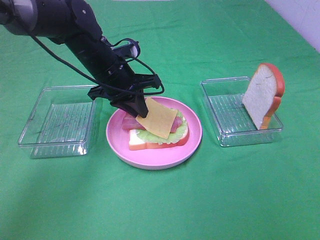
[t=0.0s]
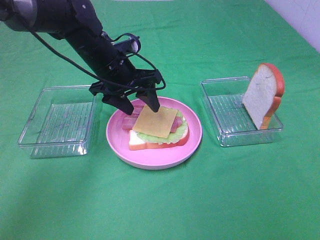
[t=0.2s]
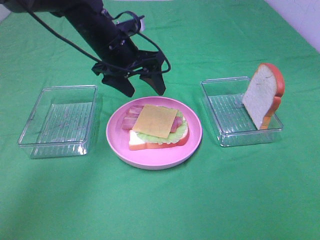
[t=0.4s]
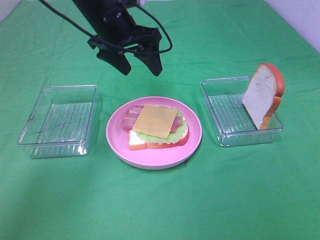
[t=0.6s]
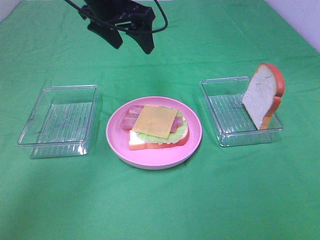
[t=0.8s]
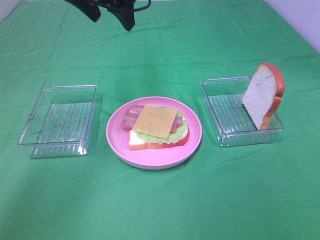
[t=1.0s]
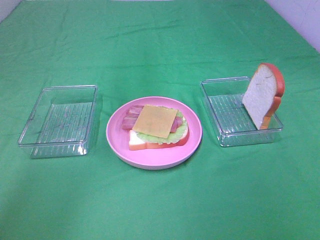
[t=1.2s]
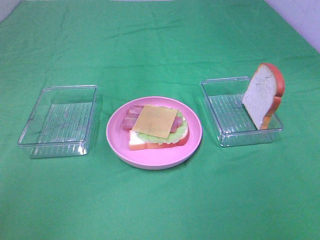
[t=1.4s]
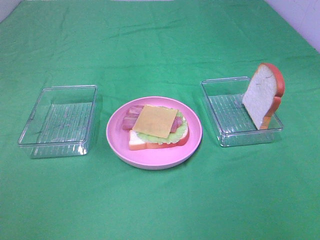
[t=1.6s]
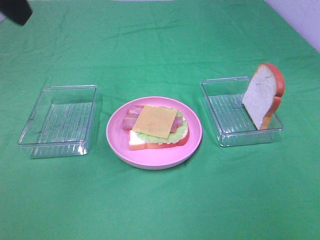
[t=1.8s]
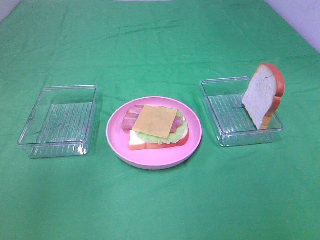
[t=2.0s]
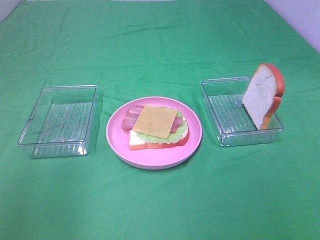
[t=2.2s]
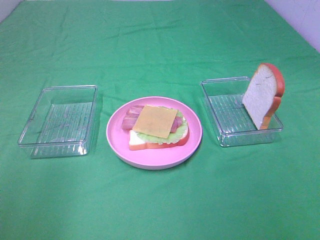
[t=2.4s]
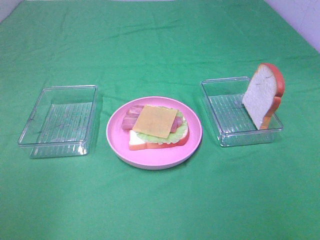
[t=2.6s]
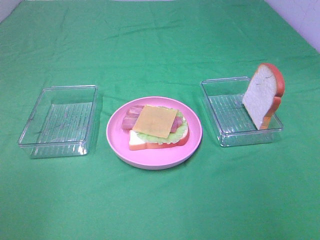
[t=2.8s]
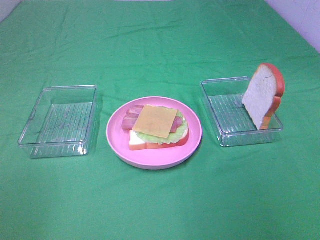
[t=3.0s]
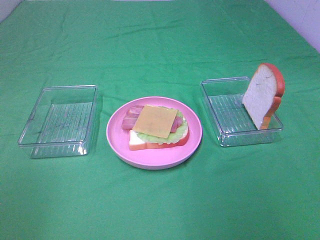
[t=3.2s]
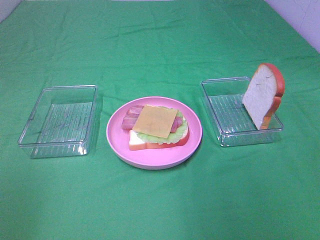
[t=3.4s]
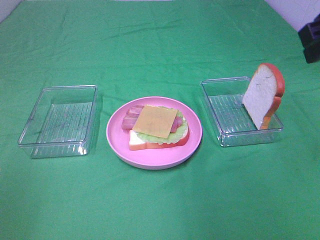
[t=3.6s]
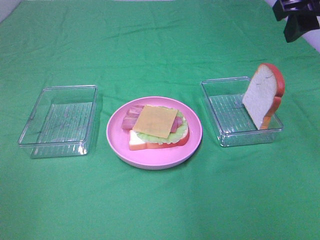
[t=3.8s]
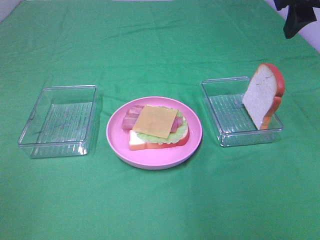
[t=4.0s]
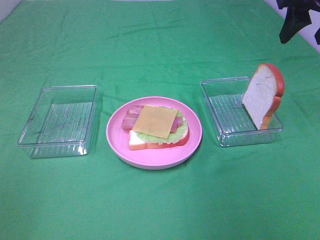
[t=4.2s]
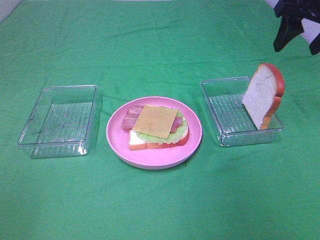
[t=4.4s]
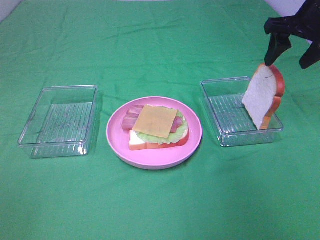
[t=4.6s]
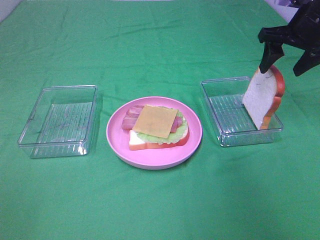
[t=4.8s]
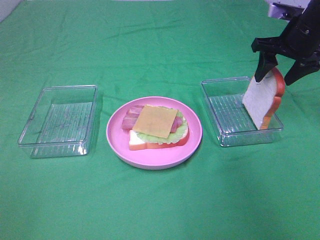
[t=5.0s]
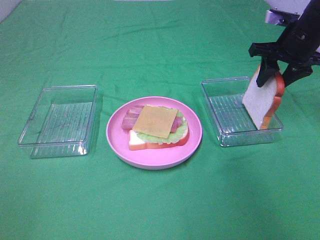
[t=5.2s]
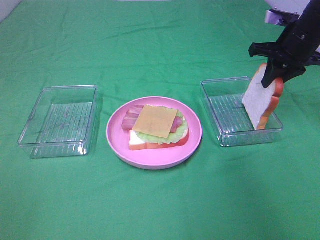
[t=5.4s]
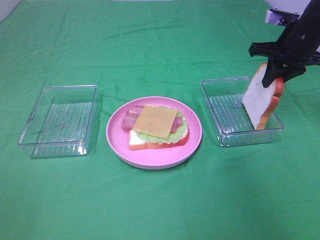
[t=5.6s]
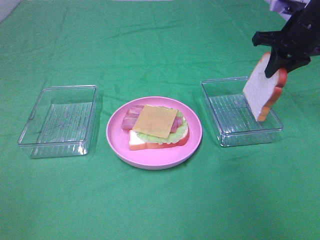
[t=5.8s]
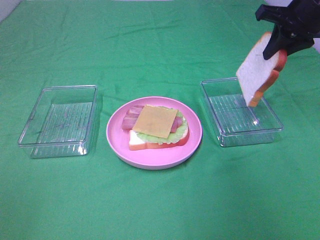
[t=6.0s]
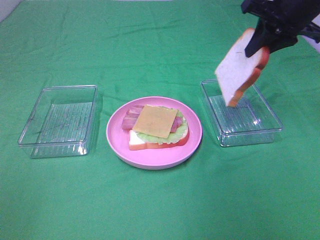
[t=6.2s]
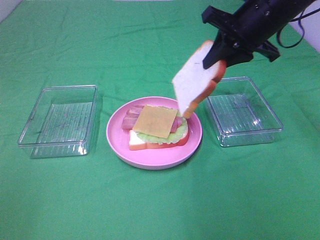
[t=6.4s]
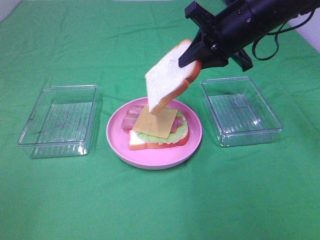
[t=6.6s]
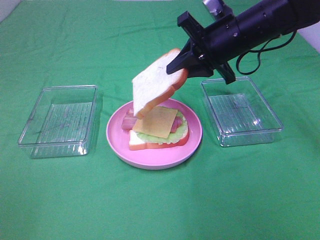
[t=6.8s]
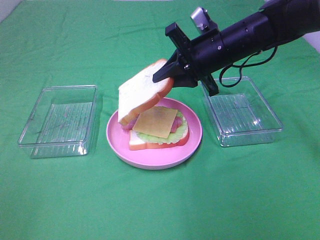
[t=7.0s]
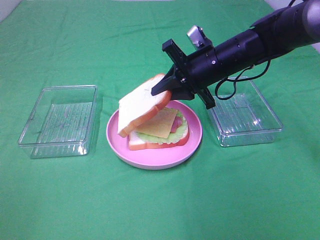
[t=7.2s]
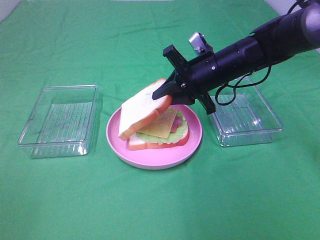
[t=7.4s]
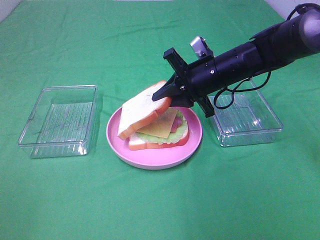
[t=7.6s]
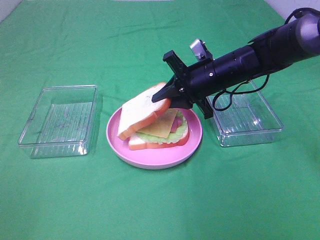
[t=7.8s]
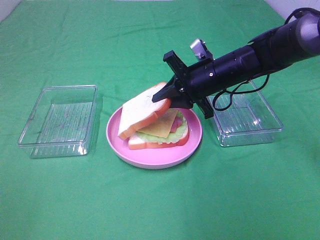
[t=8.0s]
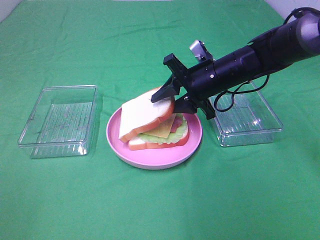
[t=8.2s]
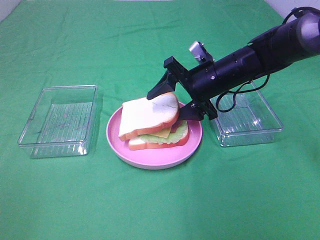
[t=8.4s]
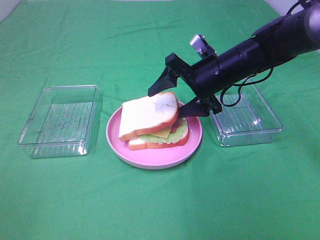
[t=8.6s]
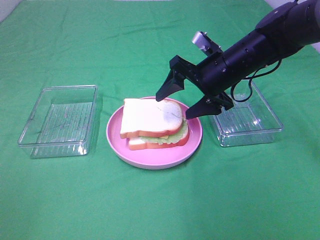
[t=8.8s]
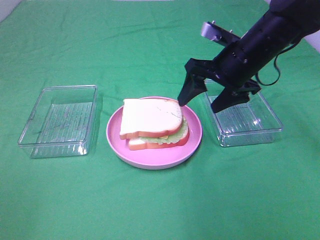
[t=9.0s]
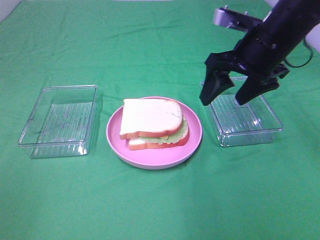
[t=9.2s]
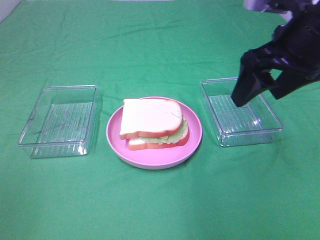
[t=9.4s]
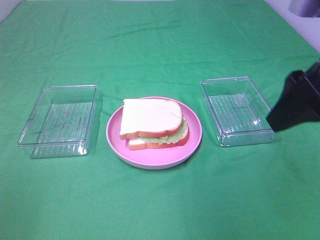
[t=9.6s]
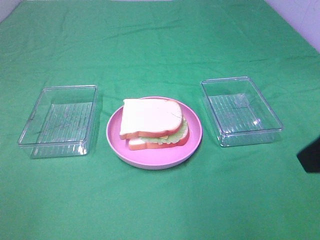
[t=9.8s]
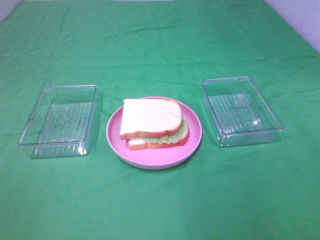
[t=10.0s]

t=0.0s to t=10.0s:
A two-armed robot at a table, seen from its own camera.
Task of the whole recording: Make sandwiches.
Step, t=0.4s to t=5.6s: Right hand:grab the bread slice.
Step, t=5.8s to t=8.8s: Right hand:place the bread slice on the cheese slice.
t=0.0s to t=1.4s: The left gripper moves upward, about 25 cm, and opens.
t=1.4s to t=2.8s: The left gripper moves backward, to the left and downward, about 35 cm.
t=2.8s to t=4.2s: The right gripper goes roughly 35 cm forward.
t=4.2s to t=5.8s: The right gripper heads downward and forward, covering about 10 cm, and closes up.
t=5.8s to t=7.2s: The right gripper goes some 15 cm to the left and downward.
t=7.2s to t=8.6s: The right gripper opens its fingers.
t=8.6s to t=10.0s: The right gripper heads backward, upward and to the right, covering approximately 35 cm.

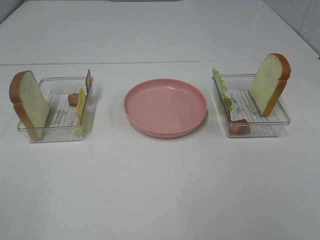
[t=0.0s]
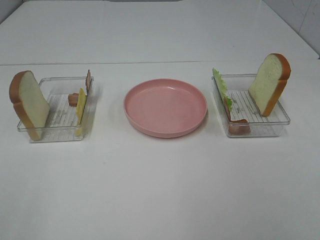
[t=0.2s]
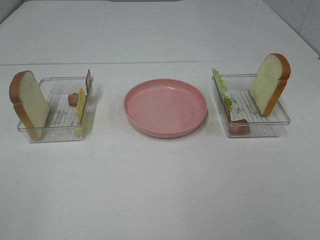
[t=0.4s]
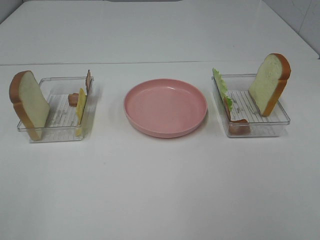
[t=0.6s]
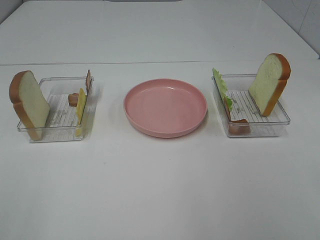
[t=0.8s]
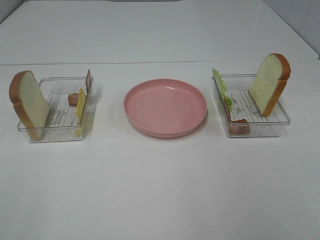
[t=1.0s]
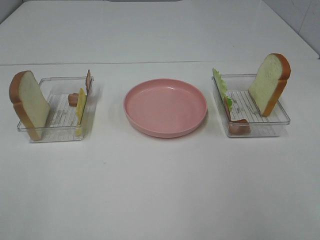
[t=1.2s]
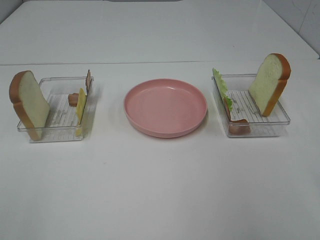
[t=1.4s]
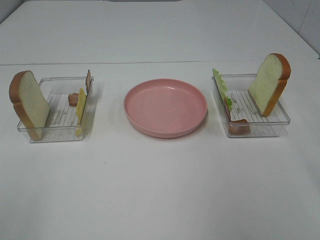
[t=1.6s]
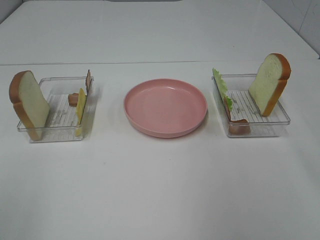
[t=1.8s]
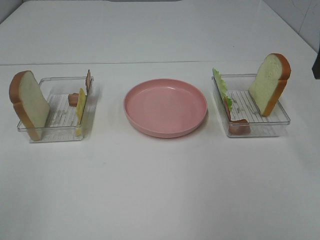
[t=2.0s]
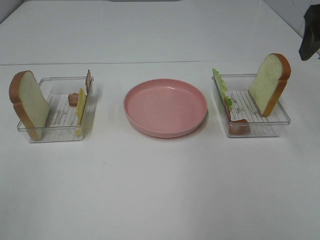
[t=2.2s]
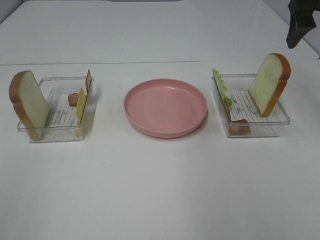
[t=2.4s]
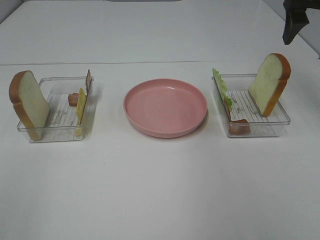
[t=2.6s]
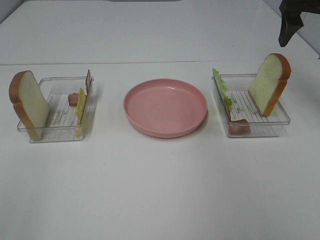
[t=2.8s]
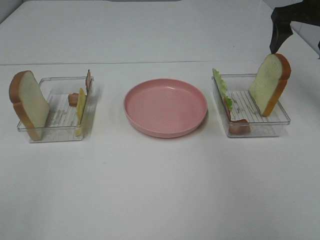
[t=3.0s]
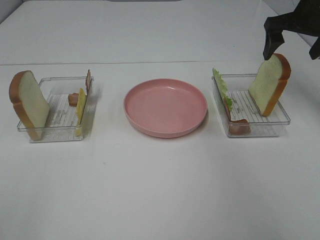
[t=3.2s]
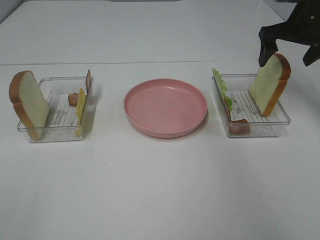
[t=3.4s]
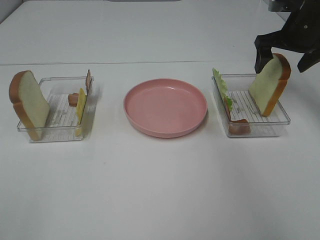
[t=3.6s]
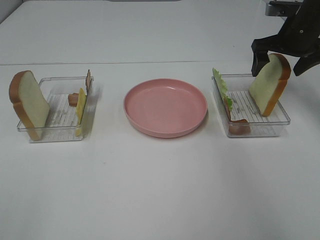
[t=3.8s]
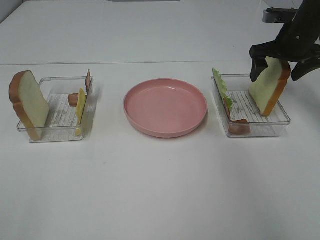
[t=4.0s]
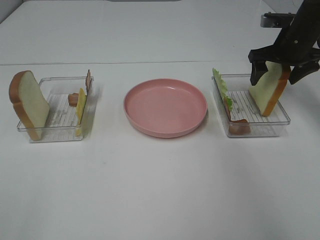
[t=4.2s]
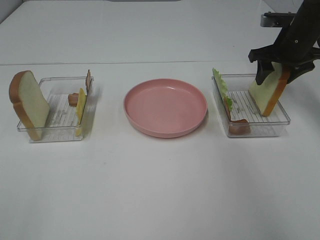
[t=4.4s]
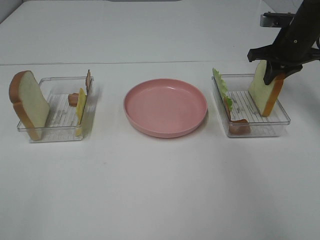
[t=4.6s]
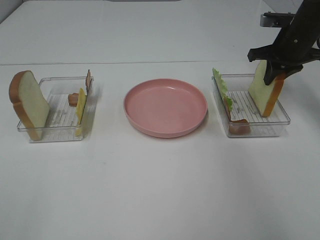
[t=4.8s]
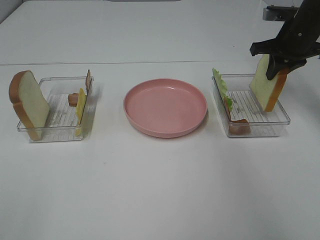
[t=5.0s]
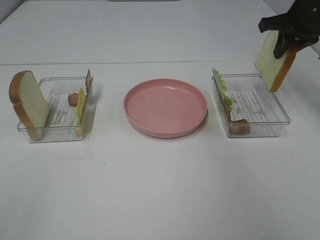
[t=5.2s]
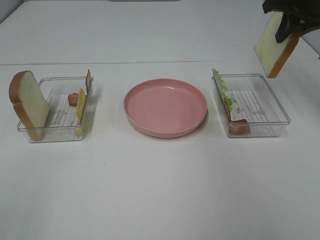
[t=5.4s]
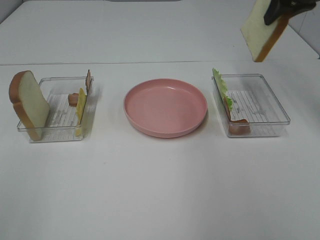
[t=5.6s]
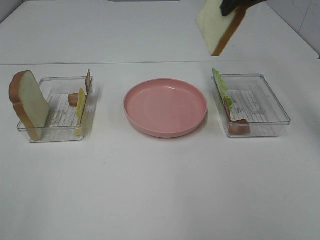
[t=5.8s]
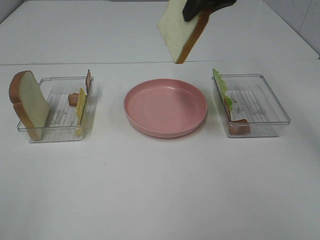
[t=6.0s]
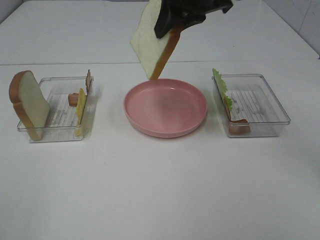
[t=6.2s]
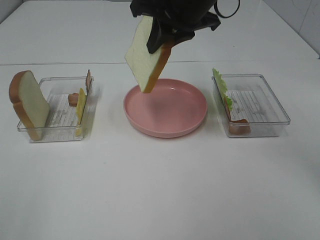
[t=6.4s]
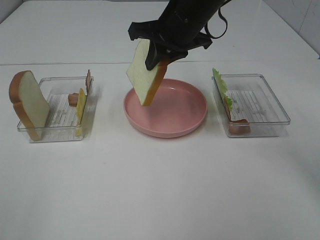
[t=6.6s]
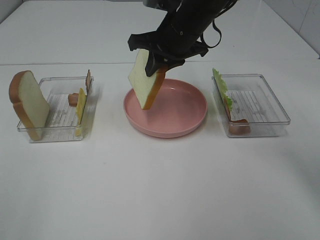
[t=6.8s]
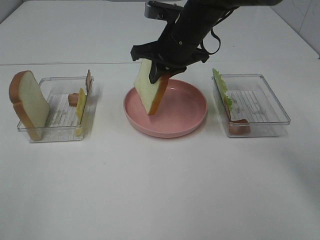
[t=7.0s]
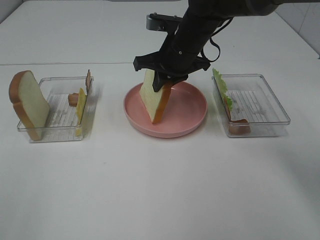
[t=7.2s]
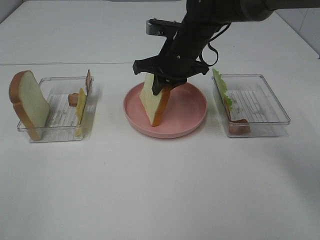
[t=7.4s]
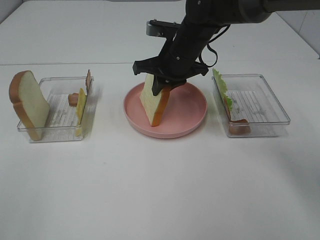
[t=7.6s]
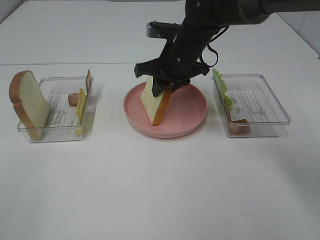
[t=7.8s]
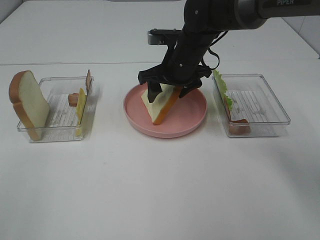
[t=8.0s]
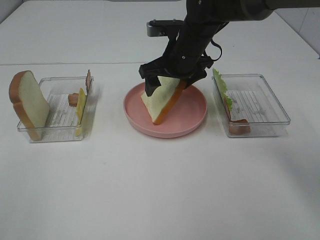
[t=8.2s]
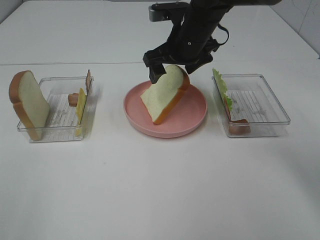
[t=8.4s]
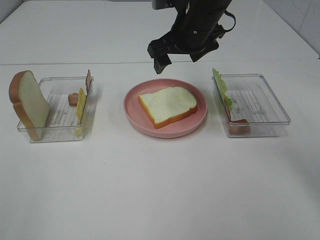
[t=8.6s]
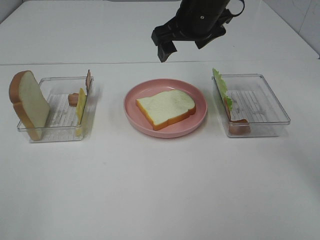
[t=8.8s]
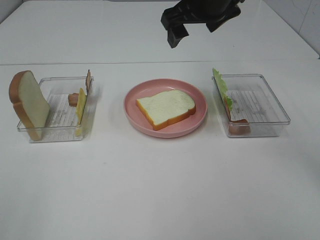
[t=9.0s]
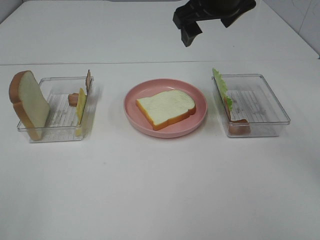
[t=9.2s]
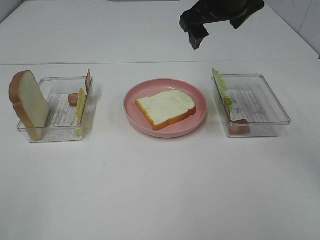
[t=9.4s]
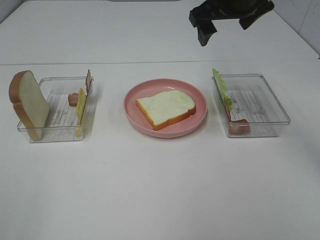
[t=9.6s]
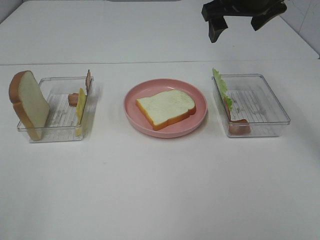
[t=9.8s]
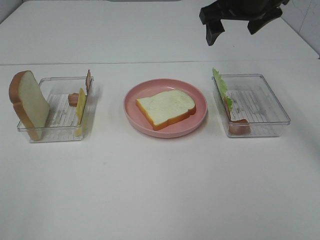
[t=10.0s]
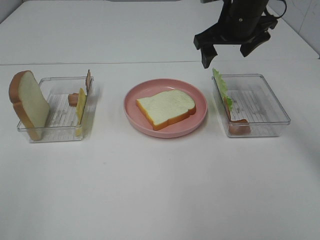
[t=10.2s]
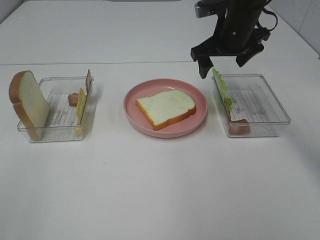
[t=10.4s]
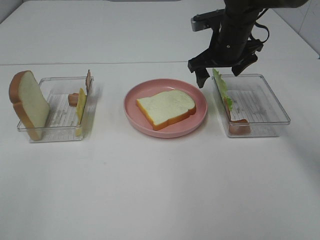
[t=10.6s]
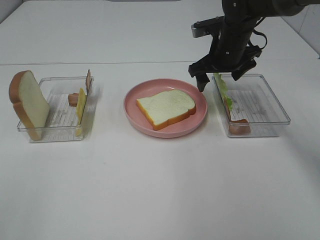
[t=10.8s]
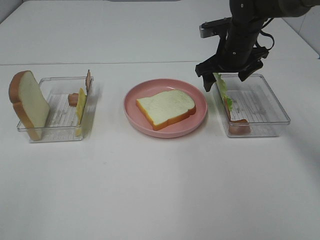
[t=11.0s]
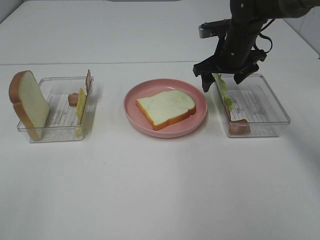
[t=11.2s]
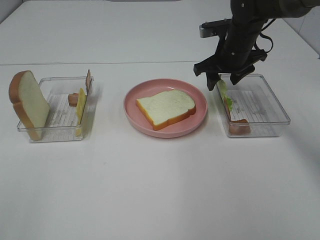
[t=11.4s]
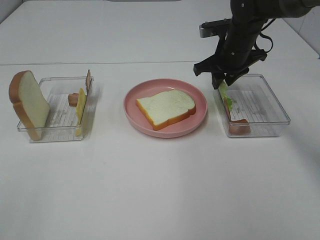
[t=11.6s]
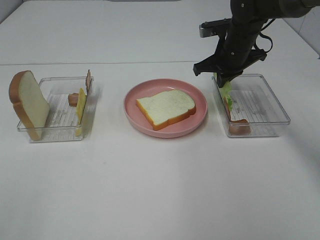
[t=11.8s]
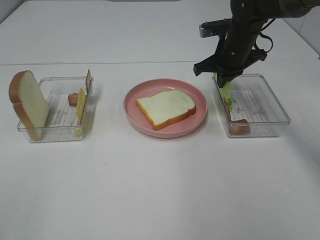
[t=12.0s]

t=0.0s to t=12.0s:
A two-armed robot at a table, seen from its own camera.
Task of the whole recording: Make sandwiches.
Step, t=0.0s to t=4.6s: Right hand:grab the bread slice.
Step, t=4.8s to t=8.6s: Right hand:place the bread slice on the plate.
t=1.6s to t=3.0s: The right gripper shifts some 25 cm forward.
t=3.0s to t=4.4s: The right gripper travels downward by roughly 10 cm.
t=4.4s to t=6.0s: The right gripper shifts some 25 cm to the left, upward and backward, and closes its fingers.
t=6.0s to t=7.6s: The right gripper goes roughly 15 cm downward.
t=7.6s to t=9.0s: The right gripper shifts approximately 15 cm upward, and opens its fingers.
t=9.0s to t=10.4s: The right gripper shifts approximately 10 cm downward and to the right.
t=10.4s to t=12.0s: The right gripper is displaced downward by roughly 5 cm, and closes up.
